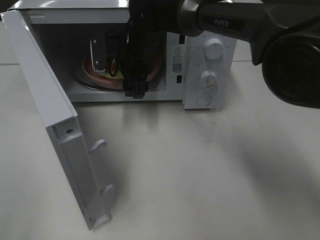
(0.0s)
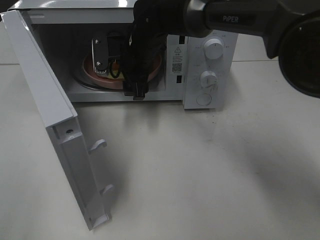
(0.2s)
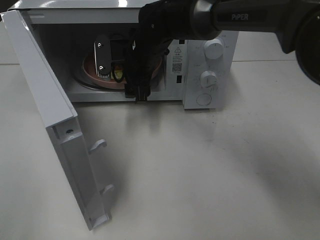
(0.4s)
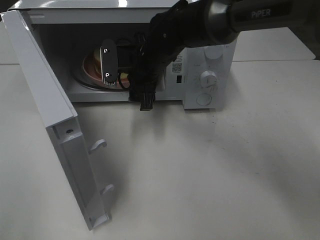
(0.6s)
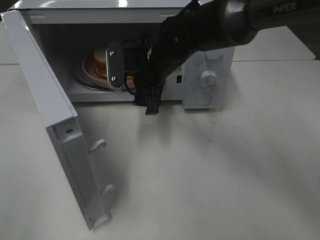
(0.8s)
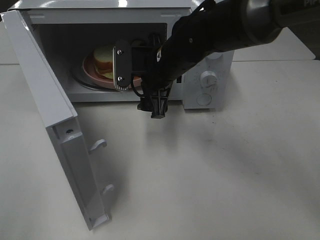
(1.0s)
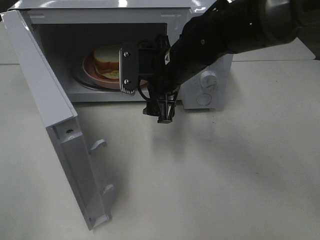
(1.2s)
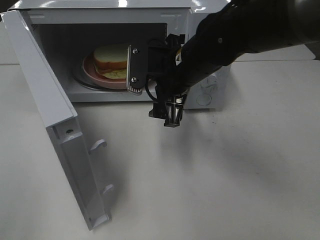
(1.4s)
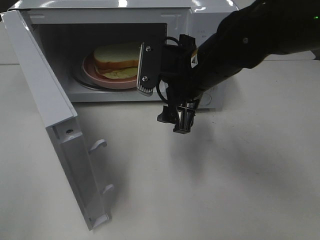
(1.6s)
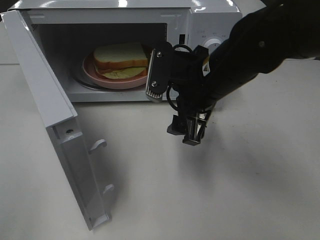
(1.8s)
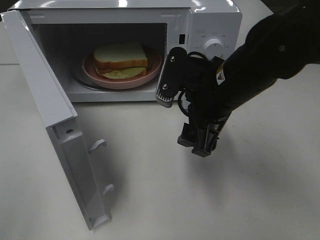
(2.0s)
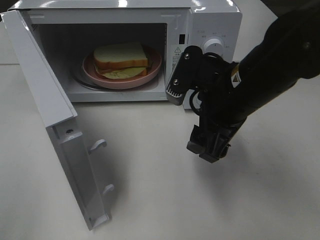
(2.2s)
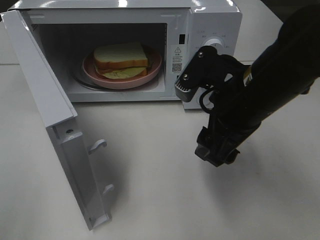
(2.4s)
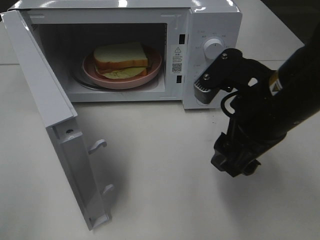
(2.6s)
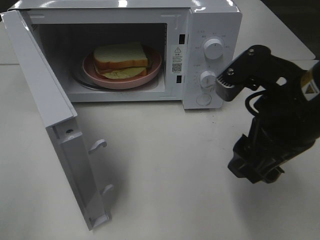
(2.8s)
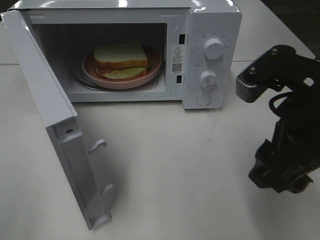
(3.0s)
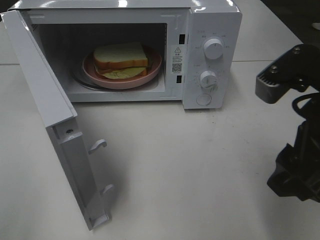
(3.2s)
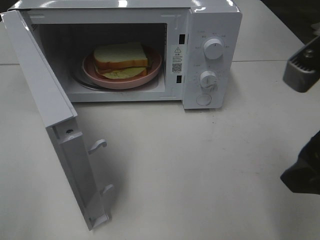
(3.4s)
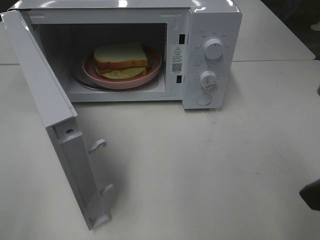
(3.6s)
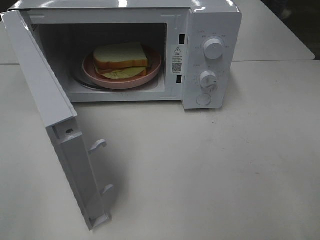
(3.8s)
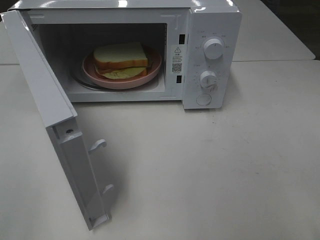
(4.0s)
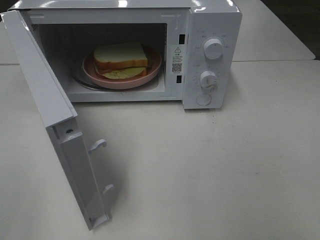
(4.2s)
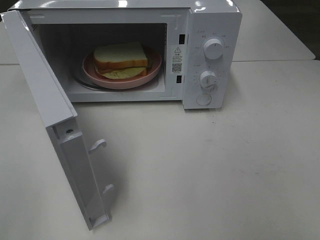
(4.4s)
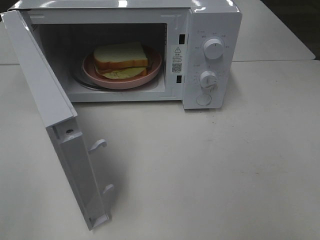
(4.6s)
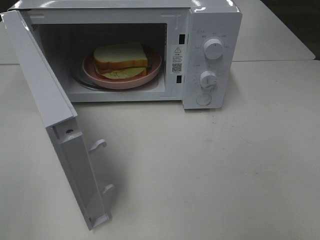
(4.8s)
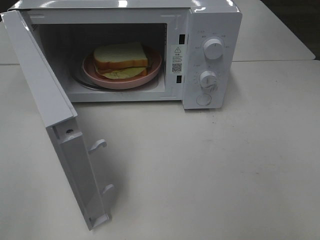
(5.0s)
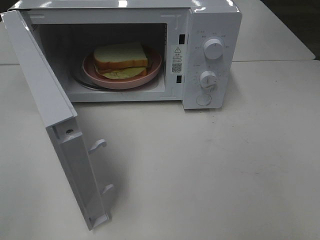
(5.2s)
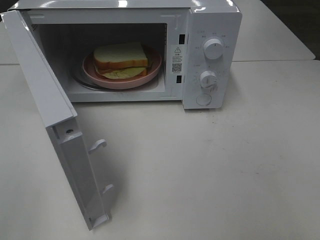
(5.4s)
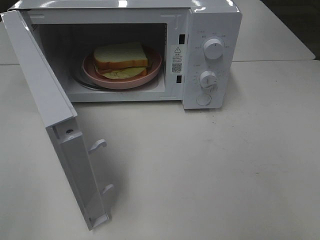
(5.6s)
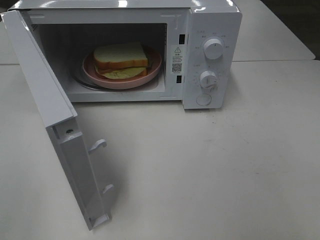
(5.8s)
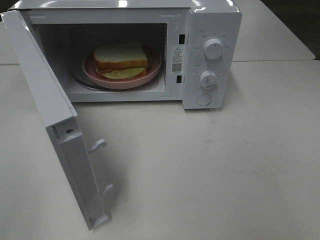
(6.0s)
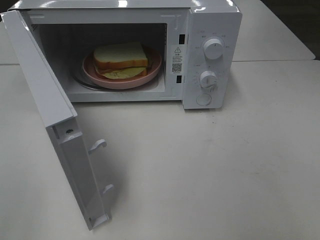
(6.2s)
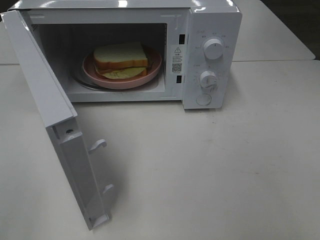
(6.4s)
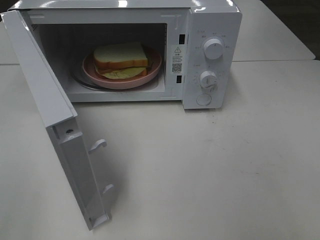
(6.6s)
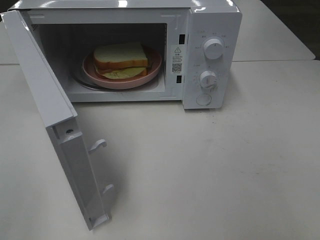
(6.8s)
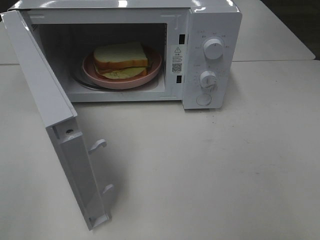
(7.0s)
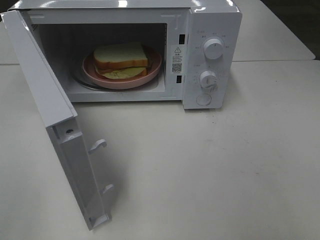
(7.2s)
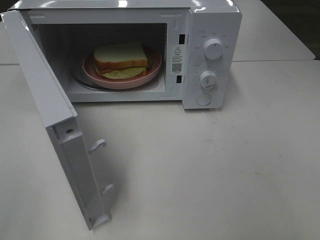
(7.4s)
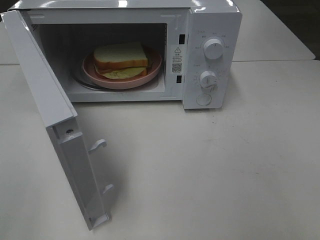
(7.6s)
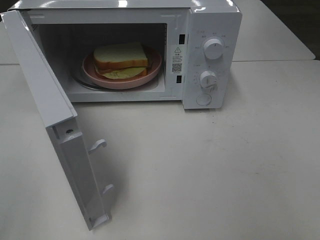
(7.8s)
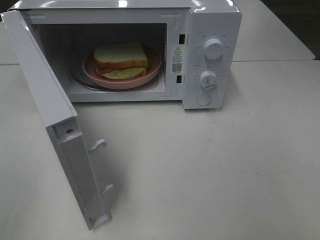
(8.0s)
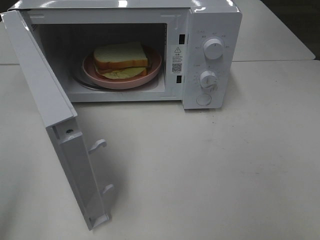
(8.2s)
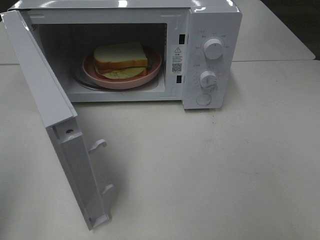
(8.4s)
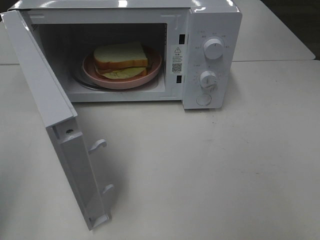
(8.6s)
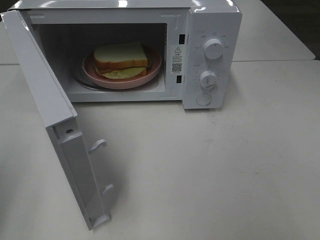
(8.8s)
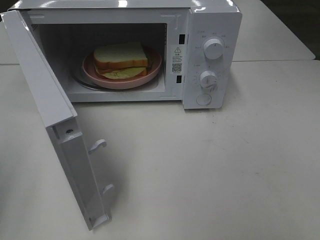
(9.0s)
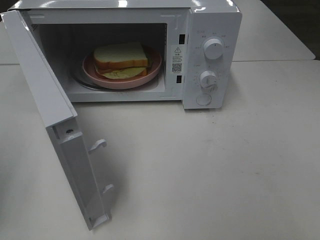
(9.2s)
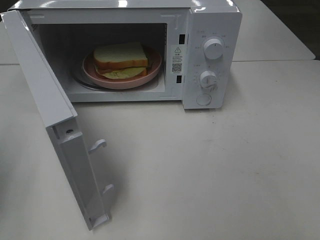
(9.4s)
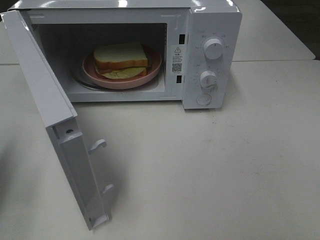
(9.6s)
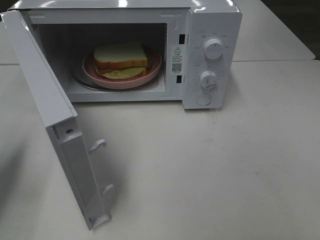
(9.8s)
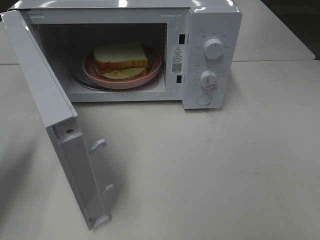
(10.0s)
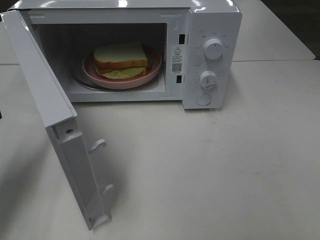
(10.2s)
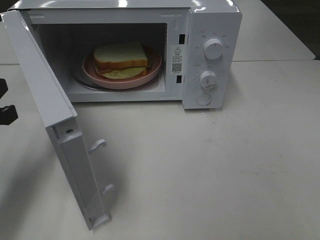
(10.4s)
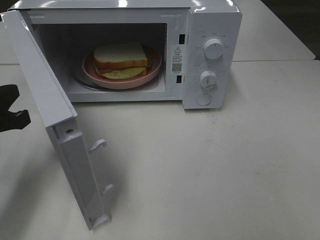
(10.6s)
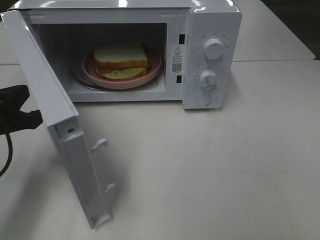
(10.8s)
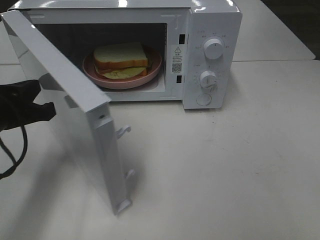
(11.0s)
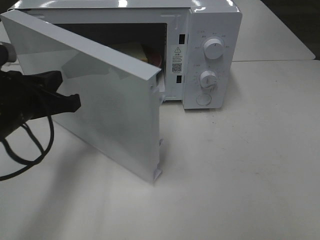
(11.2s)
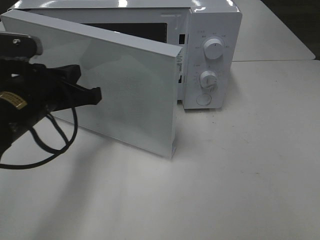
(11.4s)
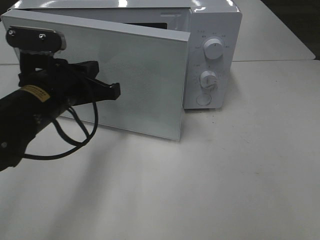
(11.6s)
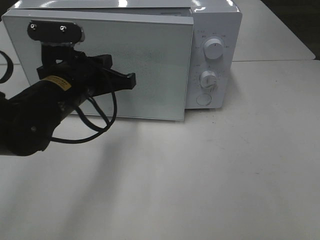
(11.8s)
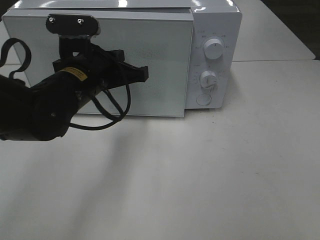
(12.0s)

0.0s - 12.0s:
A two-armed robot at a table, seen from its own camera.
Task of the whole recording: Heat Sandwich.
0.0s - 1.6s: The right gripper shifts about 15 cm backward and to the right.
1.6s - 3.0s: The right gripper is displaced backward and to the right by roughly 15 cm.
3.0s - 4.4s: The right gripper moves backward and to the right, approximately 15 cm.
6.0s - 7.6s: The two grippers keep their place.
9.0s - 10.4s: The left gripper heads forward, to the right and downward, covering roughly 10 cm.
10.4s - 12.0s: The left gripper is displaced to the right and forward by some 20 cm.

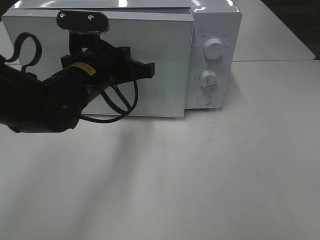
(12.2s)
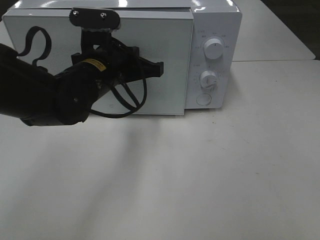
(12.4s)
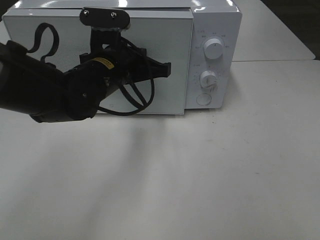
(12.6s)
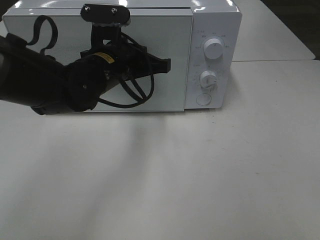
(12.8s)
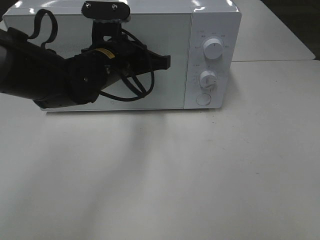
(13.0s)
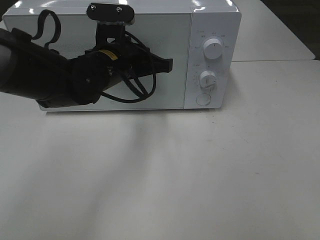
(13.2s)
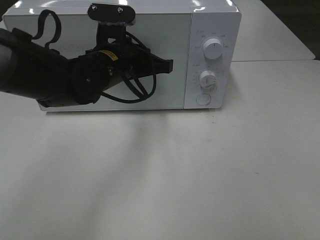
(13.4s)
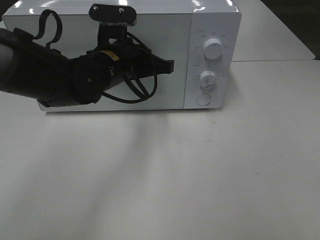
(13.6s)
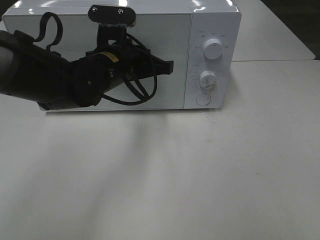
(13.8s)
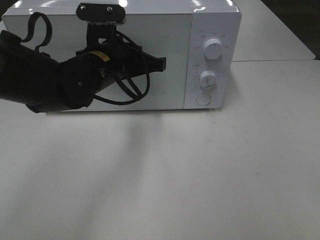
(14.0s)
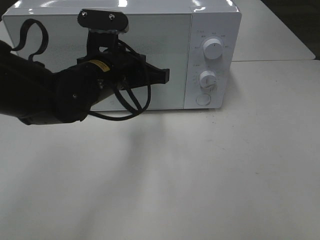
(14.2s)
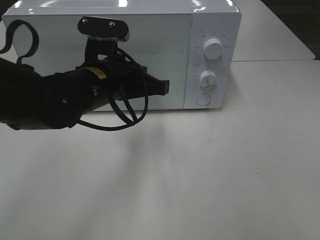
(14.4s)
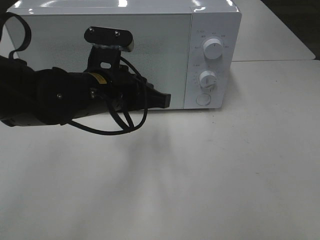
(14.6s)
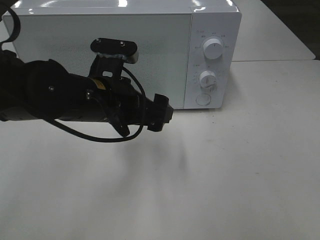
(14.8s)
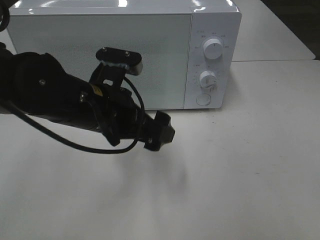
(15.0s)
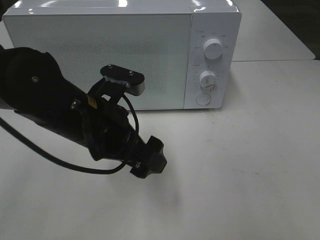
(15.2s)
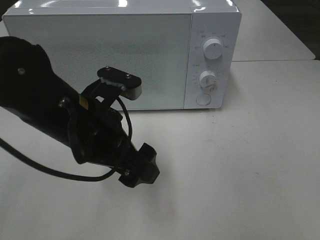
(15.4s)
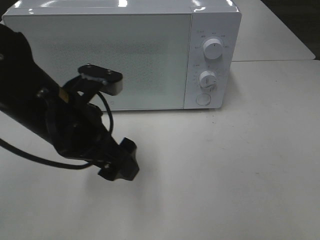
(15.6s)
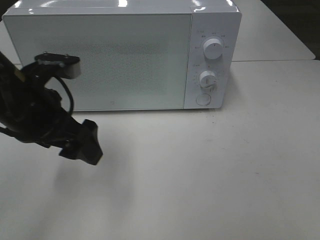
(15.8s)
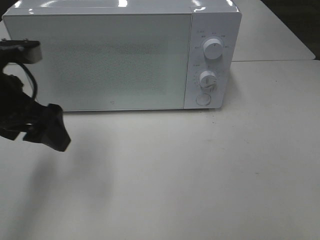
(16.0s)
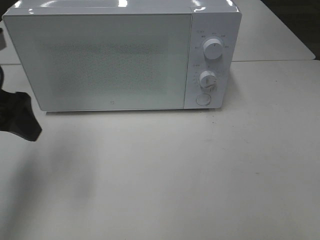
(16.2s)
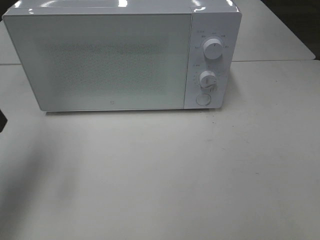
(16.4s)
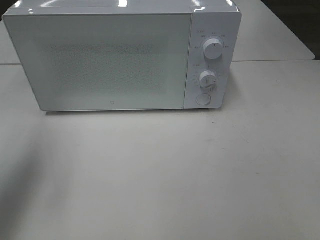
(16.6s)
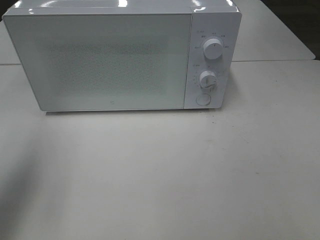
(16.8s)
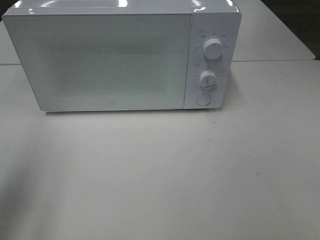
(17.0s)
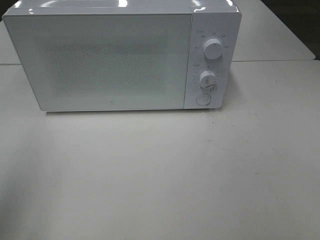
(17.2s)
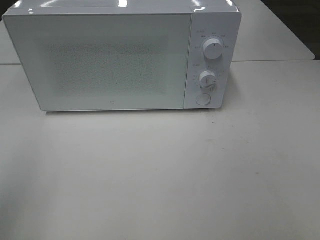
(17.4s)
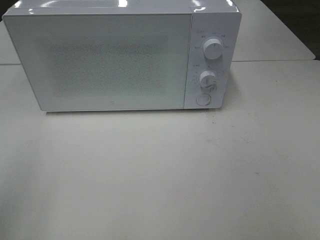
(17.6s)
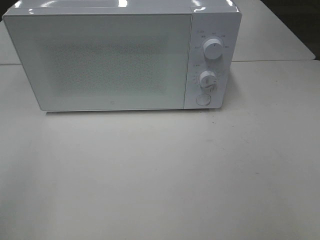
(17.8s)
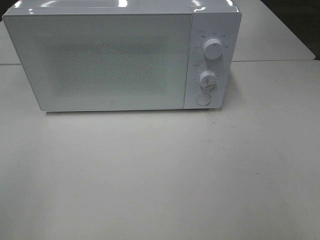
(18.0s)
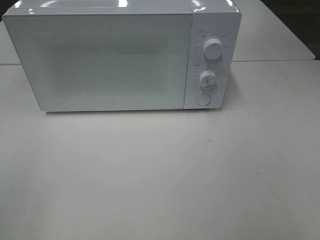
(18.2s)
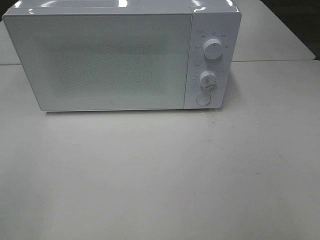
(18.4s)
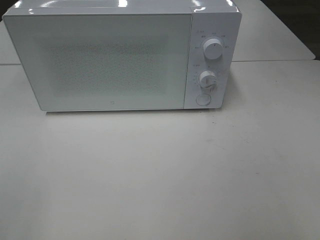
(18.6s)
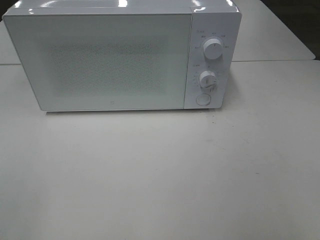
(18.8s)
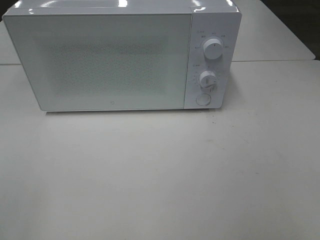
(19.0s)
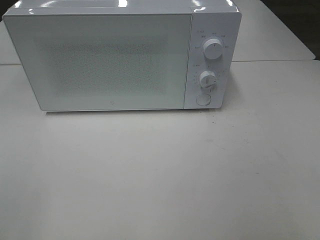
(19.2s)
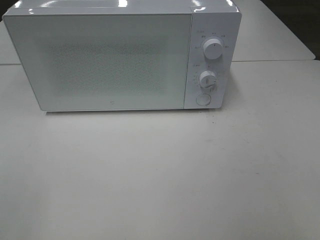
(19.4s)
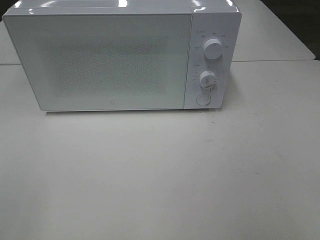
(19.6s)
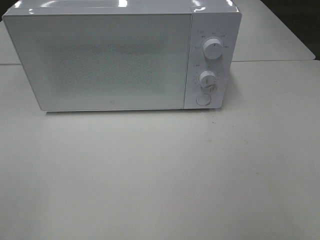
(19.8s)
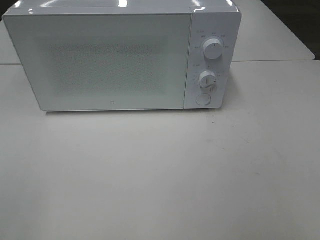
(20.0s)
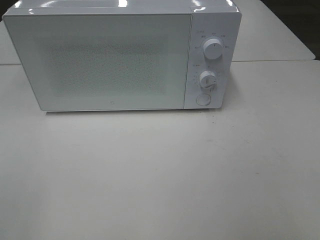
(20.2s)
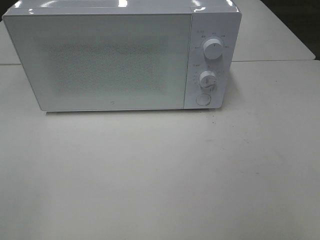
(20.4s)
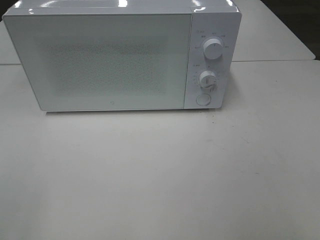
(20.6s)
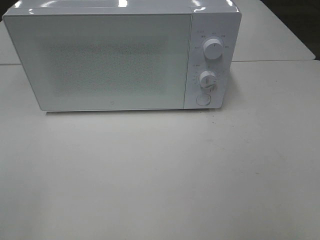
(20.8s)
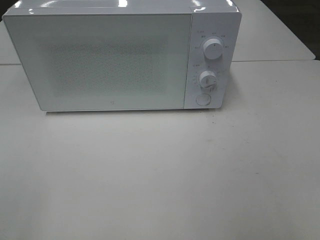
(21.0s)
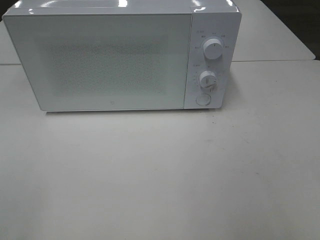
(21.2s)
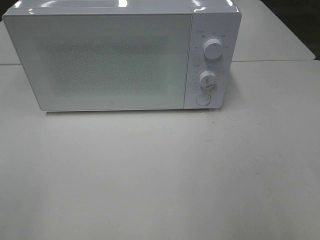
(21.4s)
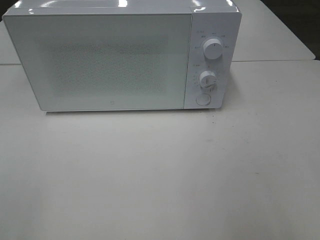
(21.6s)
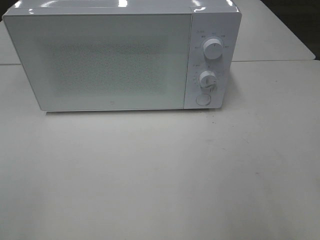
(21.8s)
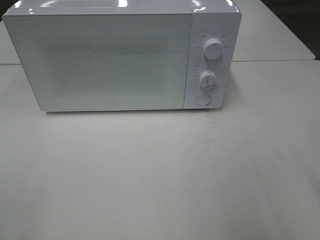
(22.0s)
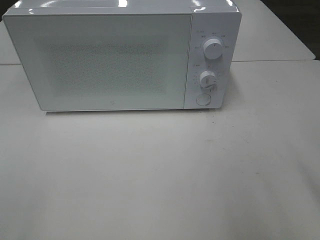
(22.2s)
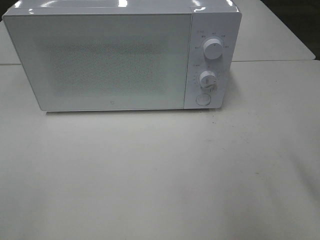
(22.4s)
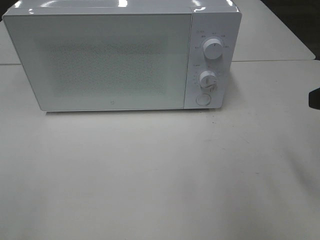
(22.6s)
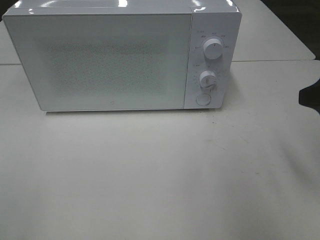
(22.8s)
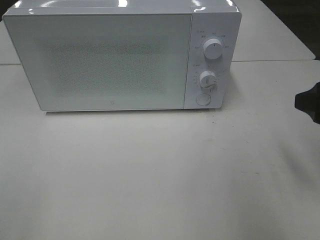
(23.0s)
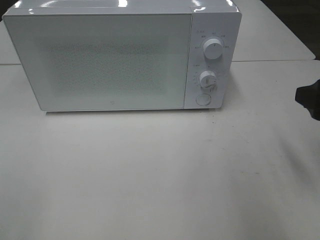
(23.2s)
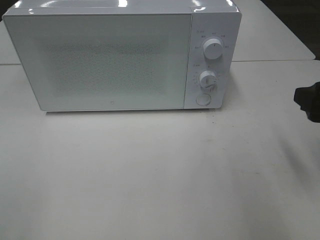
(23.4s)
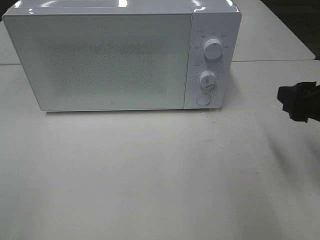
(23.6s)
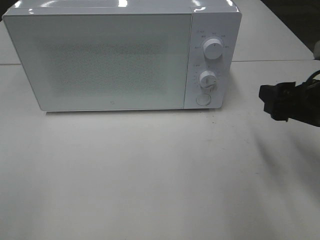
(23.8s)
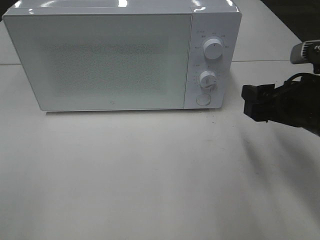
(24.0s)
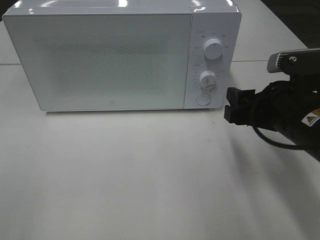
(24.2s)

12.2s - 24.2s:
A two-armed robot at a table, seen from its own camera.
Task of the whole recording: Heat Sandwich.
12.2s - 13.8s: The grippers make only small movements.
13.8s - 15.2s: The left gripper shifts some 10 cm backward, and opens its fingers.
15.2s - 16.6s: The left gripper moves to the left and upward, roughly 25 cm.
16.6s - 18.2s: The left gripper moves backward, about 20 cm.
22.6s - 24.2s: The right gripper shifts about 10 cm downward and to the left.
